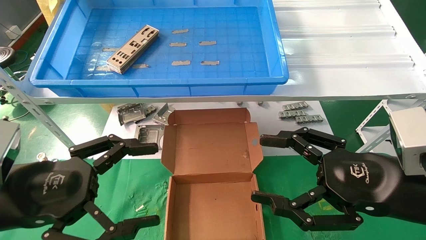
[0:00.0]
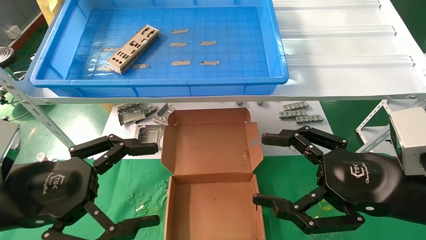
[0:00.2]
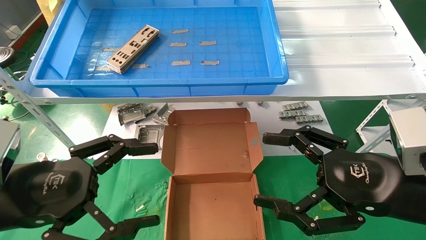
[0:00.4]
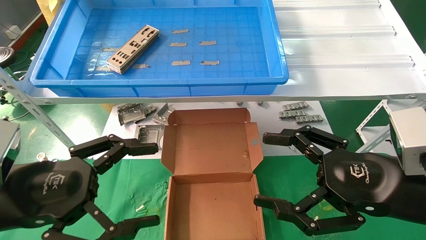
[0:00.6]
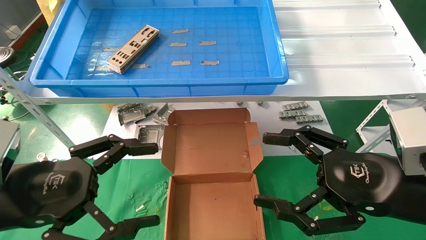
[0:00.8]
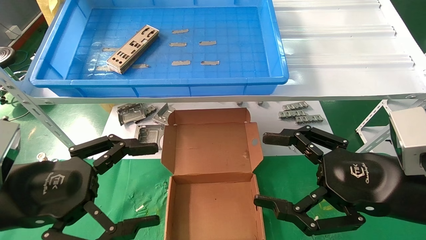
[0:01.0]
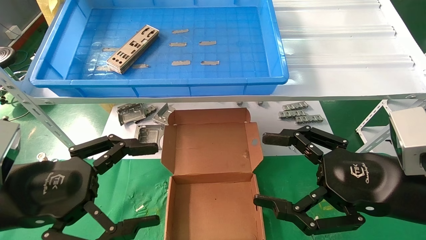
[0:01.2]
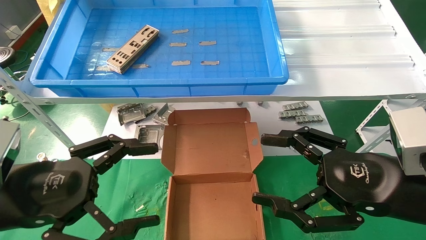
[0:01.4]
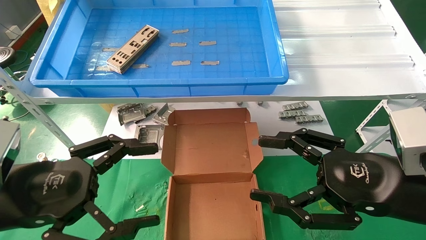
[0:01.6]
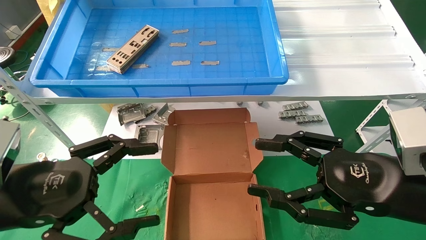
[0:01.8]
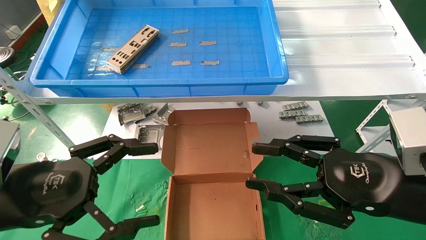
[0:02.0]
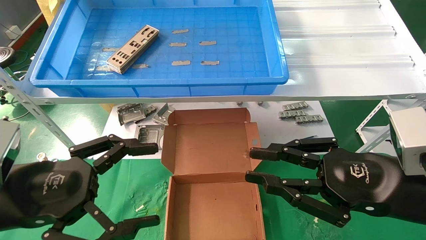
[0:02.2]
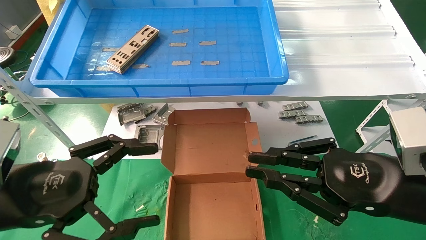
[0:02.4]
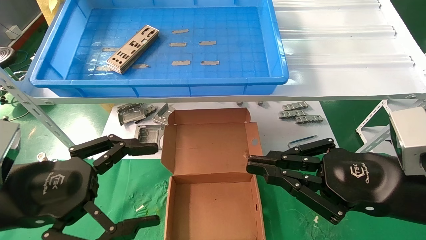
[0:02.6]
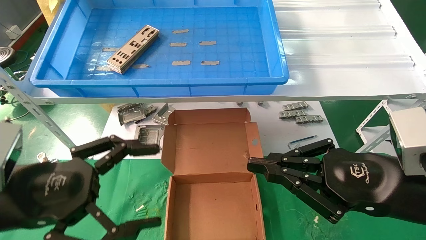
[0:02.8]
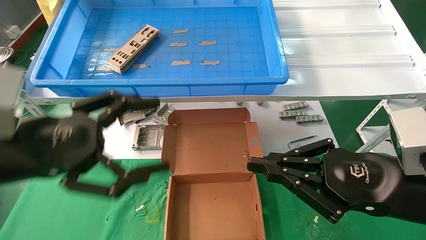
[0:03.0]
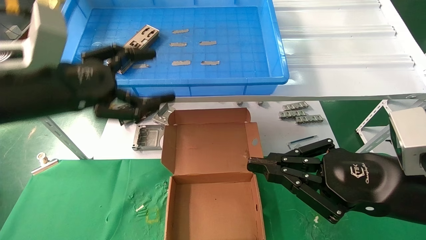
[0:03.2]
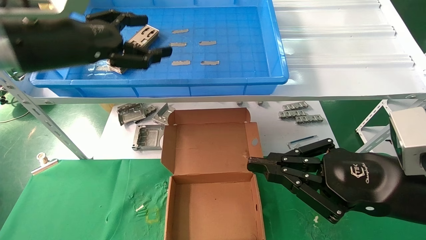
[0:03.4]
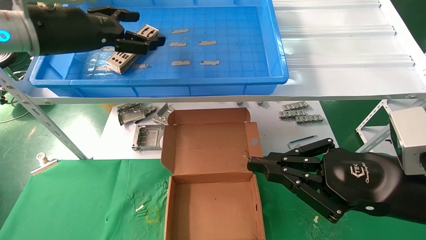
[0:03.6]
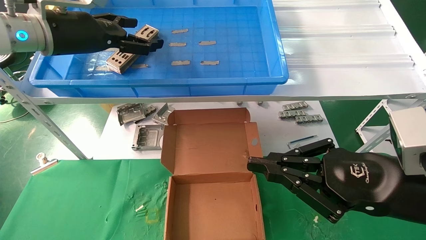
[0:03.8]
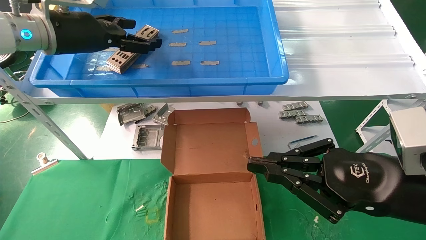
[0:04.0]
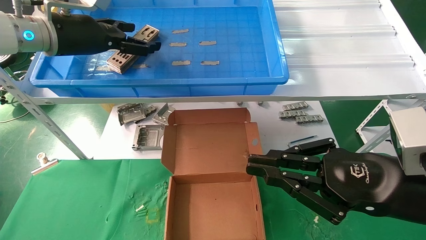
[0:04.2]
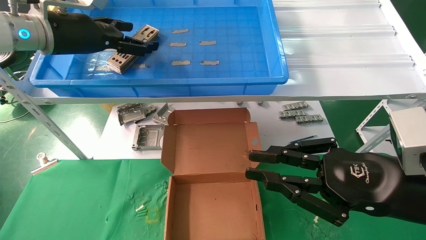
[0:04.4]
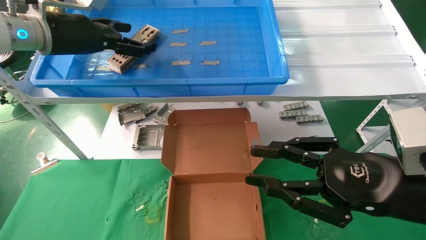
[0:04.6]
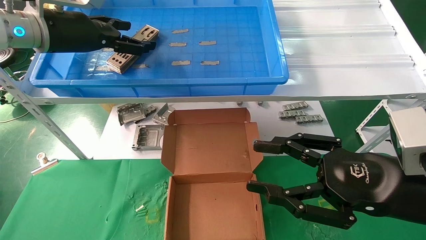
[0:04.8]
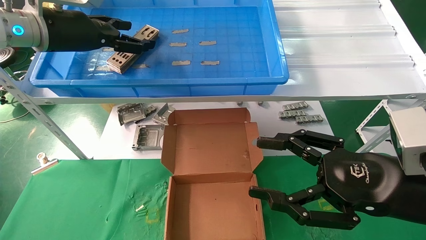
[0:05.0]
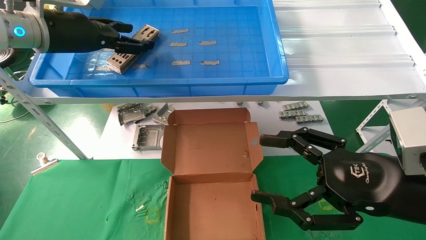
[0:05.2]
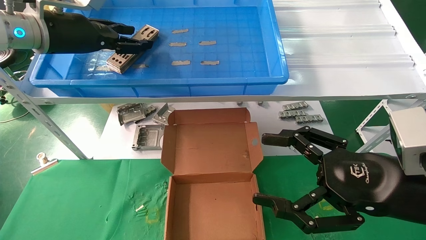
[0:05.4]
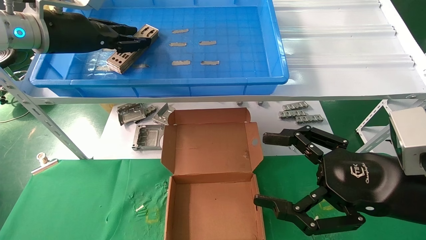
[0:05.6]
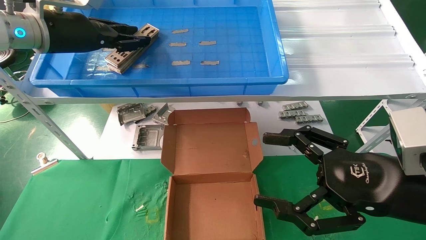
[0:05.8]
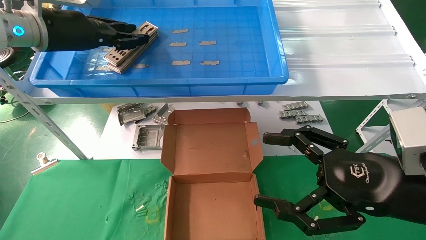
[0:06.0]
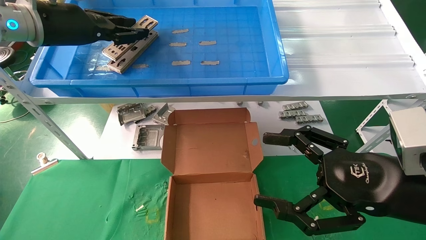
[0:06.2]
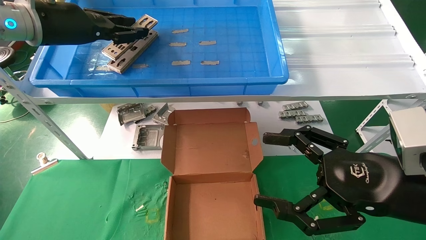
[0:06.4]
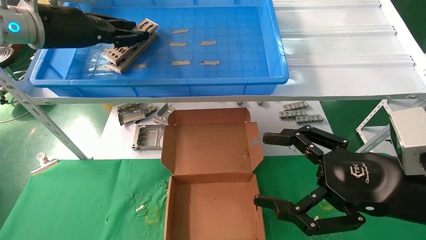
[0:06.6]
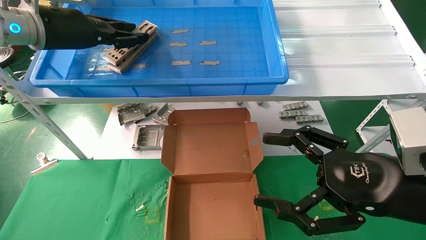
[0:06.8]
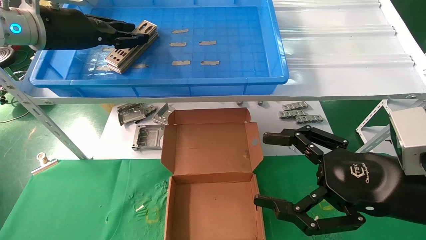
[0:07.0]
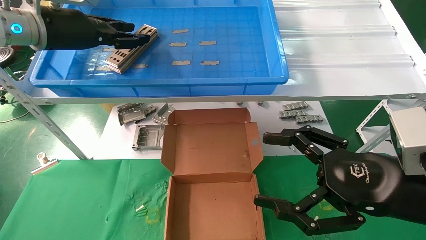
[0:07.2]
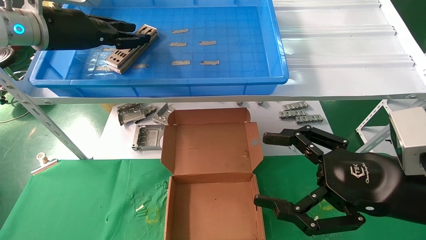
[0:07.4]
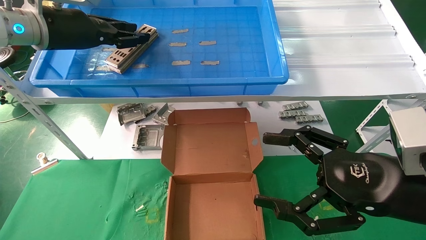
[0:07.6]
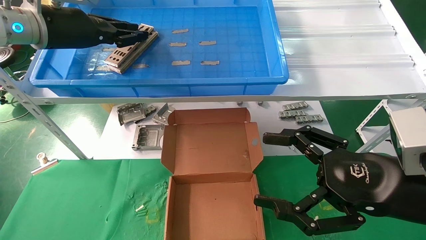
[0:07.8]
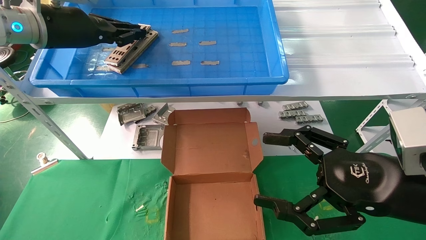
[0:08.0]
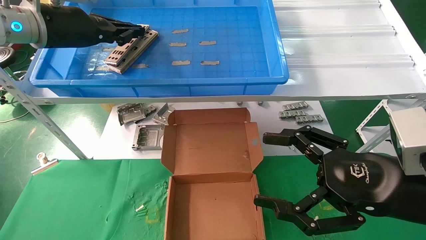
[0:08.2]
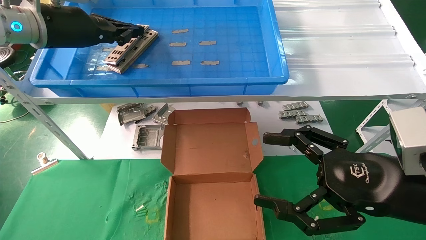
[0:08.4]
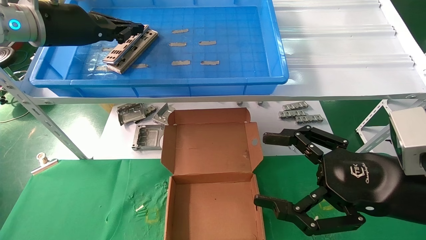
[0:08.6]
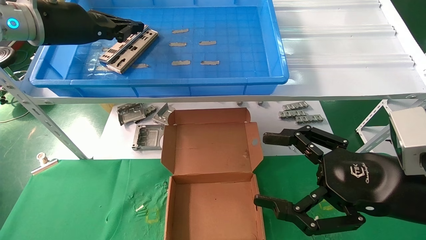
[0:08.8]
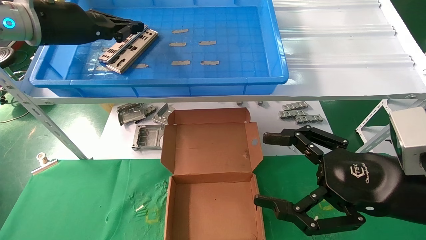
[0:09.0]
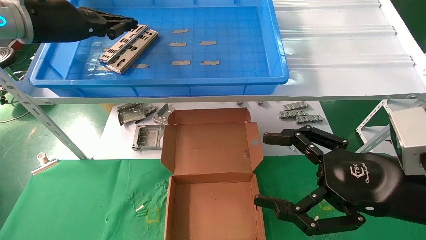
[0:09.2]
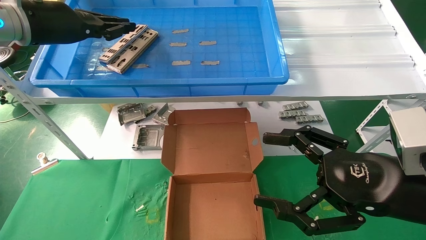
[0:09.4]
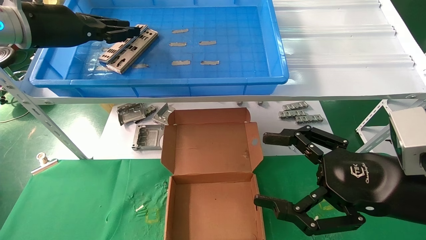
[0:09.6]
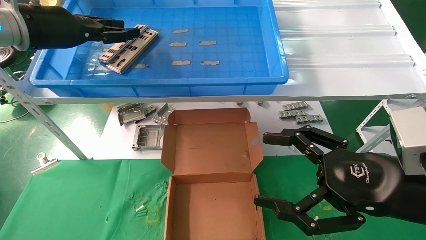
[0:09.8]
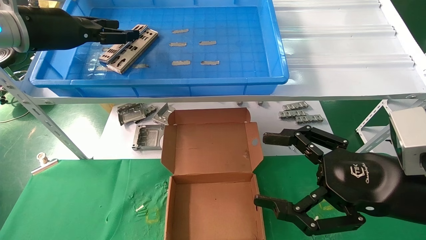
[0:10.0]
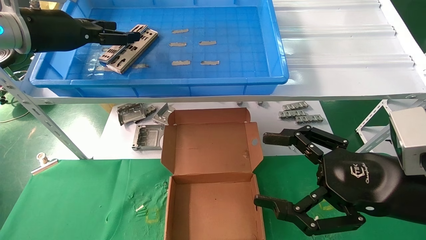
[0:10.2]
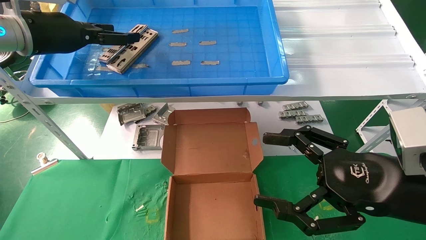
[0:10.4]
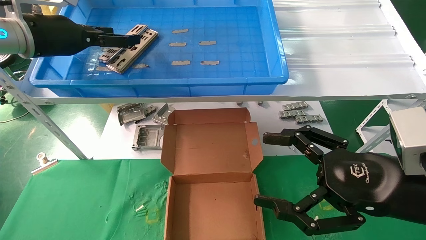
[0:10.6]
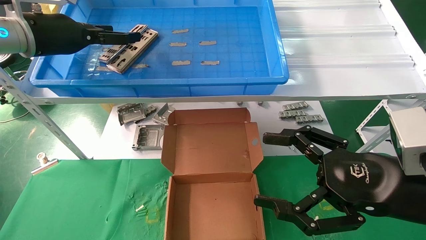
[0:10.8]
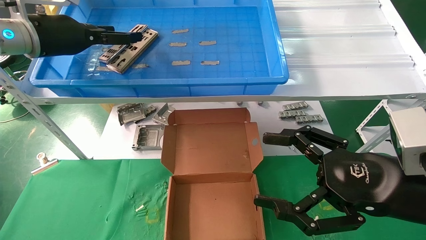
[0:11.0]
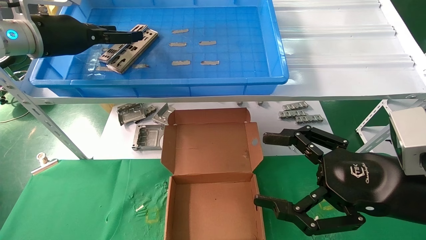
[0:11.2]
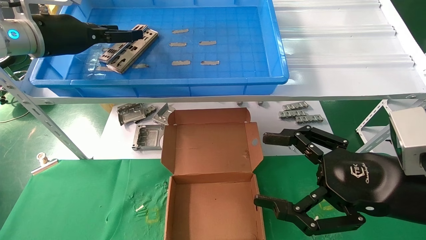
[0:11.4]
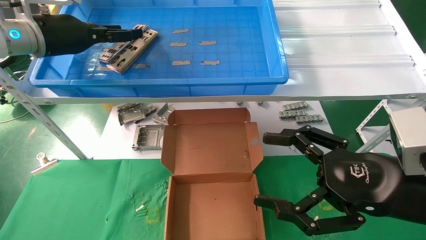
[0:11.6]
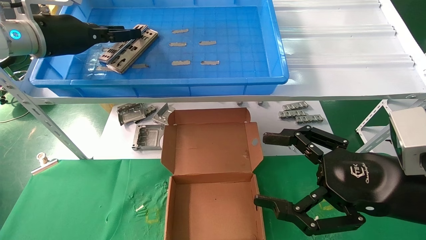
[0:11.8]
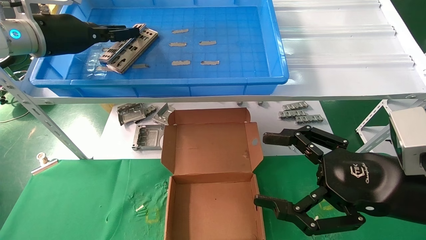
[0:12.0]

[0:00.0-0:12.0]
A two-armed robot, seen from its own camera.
Task of the whole recording: pick up the parts on the tray and put them in the cardboard box.
Step, 0:03.2 to 0:12.0: Pick up the IO bracket from the container box.
0:00.0 to 0:01.6: The two grippers keep their place.
0:01.6 to 0:03.0: The right gripper closes up. Meanwhile the left gripper goes some 5 cm upward.
0:03.0 to 0:04.4: The left gripper travels forward and upward by roughly 20 cm.
0:04.4 to 0:06.0: The left gripper closes up; the right gripper opens up.
0:06.0 to 0:07.6: Both grippers stay about where they are.
0:07.6 to 0:09.0: The left gripper closes its fingers.
0:09.0 to 0:10.4: The left gripper opens its fingers.
0:10.4 to 0:12.0: The left gripper closes up.

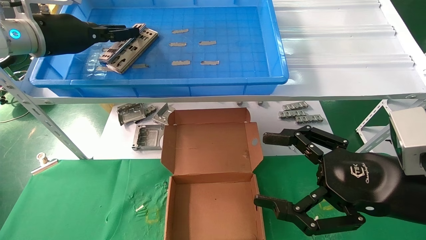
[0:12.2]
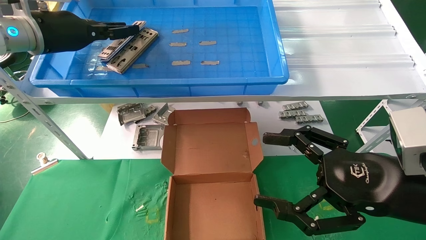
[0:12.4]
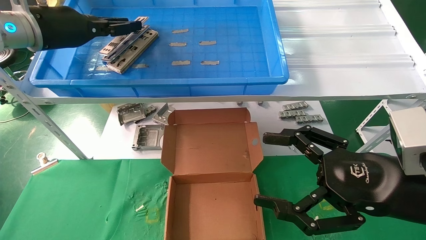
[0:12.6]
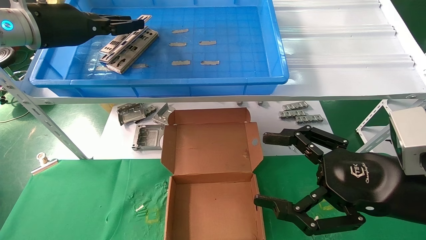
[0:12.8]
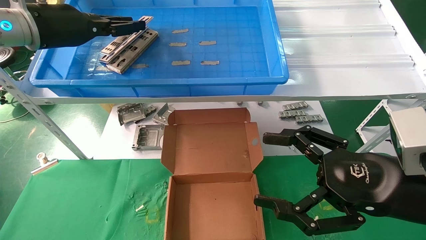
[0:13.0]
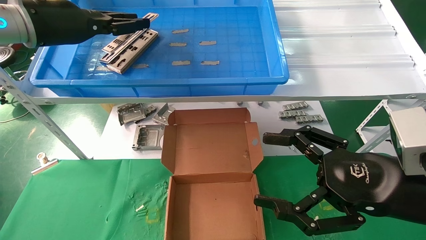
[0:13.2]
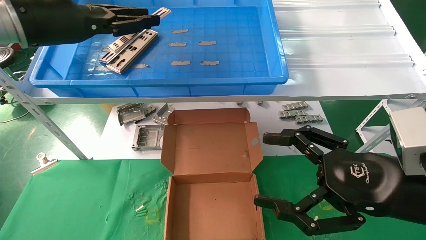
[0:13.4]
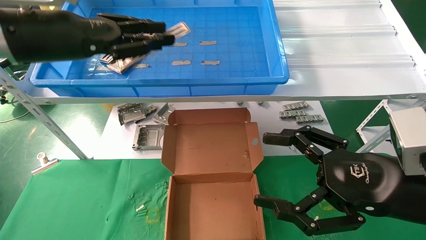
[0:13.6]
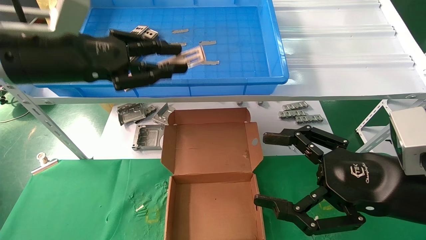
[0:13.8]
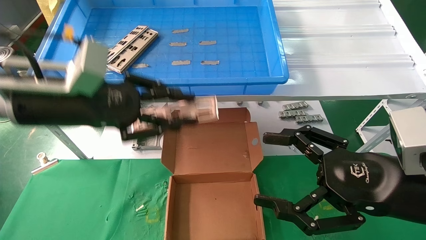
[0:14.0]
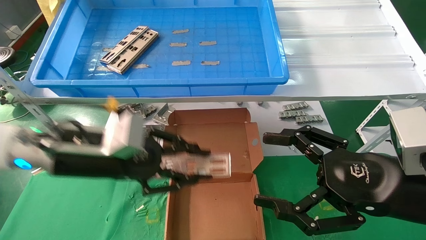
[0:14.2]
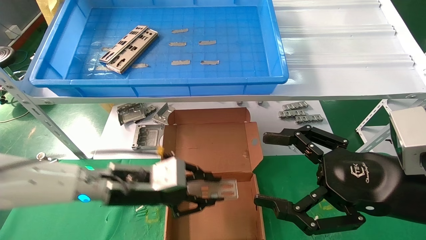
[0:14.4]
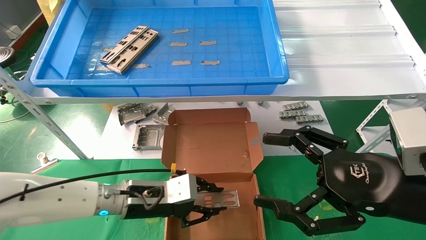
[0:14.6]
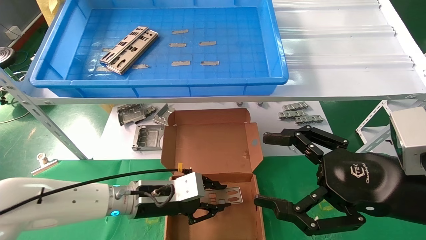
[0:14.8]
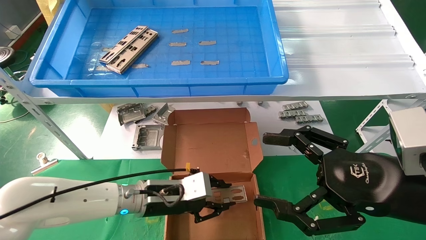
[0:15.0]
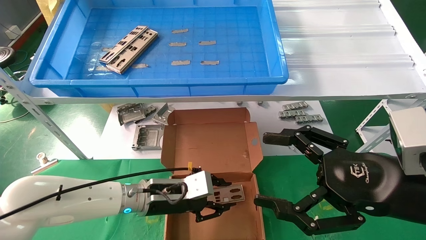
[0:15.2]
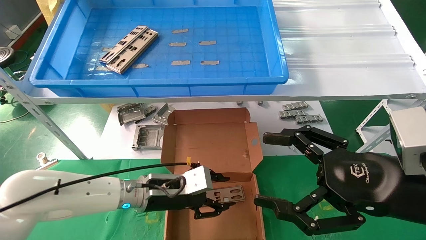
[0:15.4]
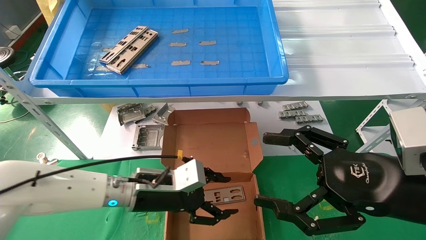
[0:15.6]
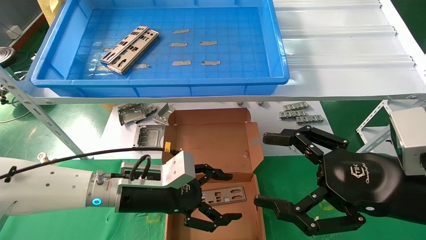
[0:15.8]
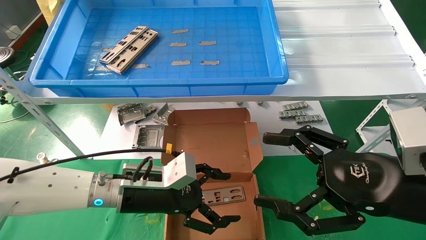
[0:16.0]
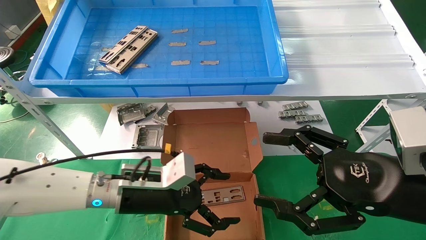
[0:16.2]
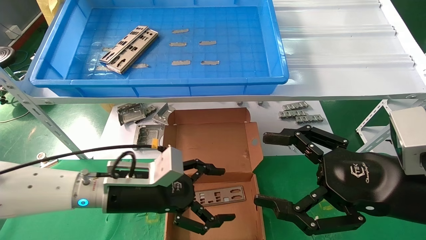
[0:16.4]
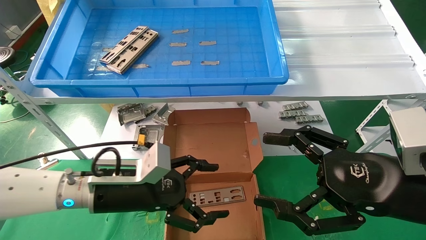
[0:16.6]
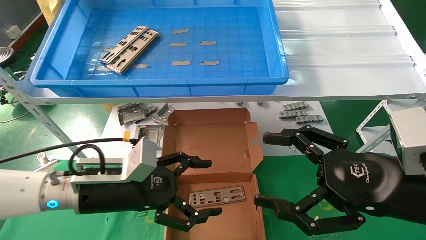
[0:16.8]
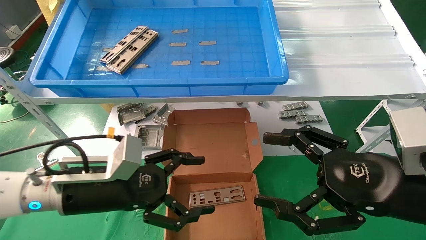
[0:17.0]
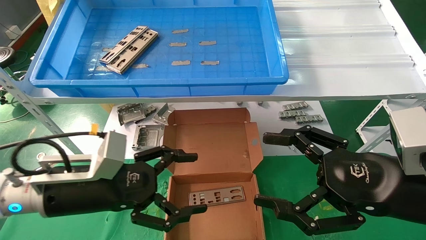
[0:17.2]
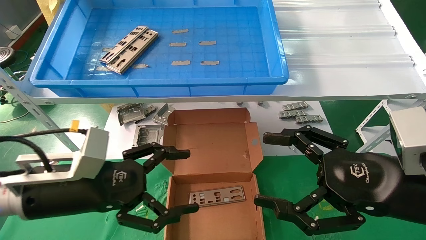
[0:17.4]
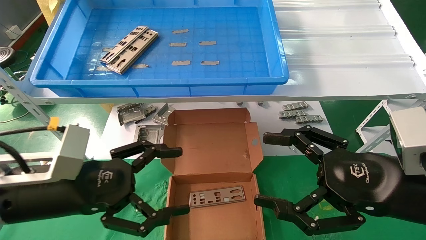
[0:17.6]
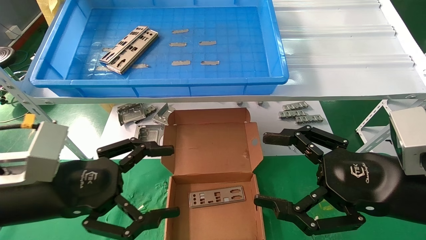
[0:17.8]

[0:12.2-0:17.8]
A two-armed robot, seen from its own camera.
Task of the whole recording: pick up the parts on the tray and put them in the cardboard box.
Step, 0:12.2 to 0:15.4: Place the IO bracket into the ingredient slot.
0:12.2 to 0:13.6: The left gripper heads backward, covering some 10 cm.
0:13.6 to 0:15.0: The left gripper goes approximately 35 cm downward and to the right.
0:15.0 to 0:16.4: The left gripper ends up approximately 10 cm from where it was, and opens.
0:16.4 to 0:17.8: The left gripper goes approximately 15 cm backward, to the left and upward.
